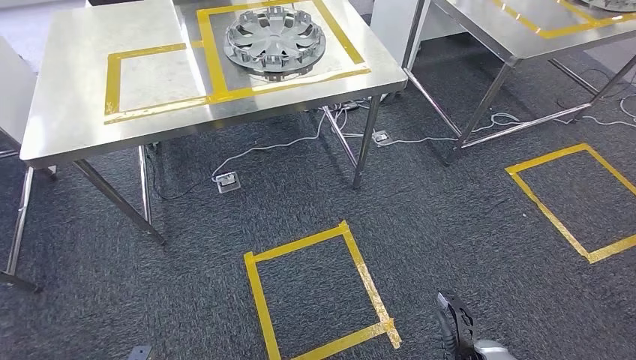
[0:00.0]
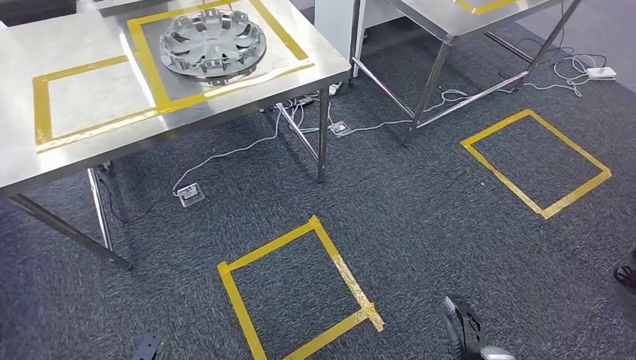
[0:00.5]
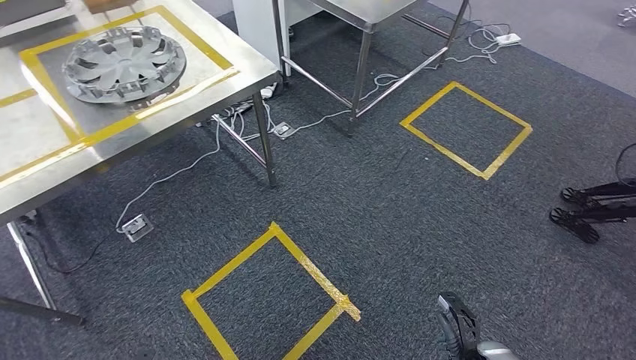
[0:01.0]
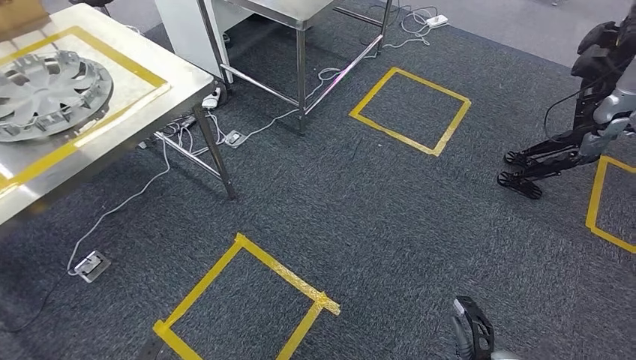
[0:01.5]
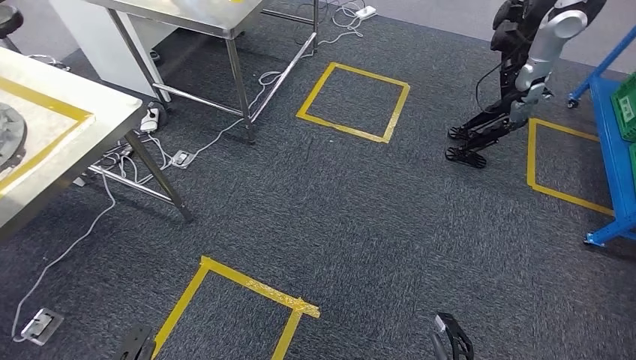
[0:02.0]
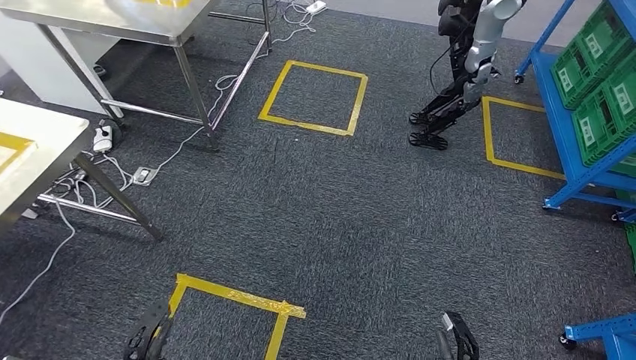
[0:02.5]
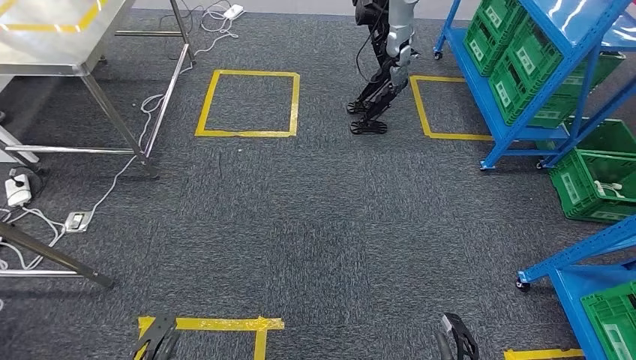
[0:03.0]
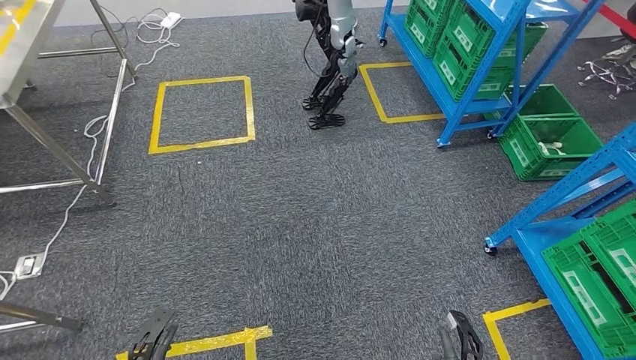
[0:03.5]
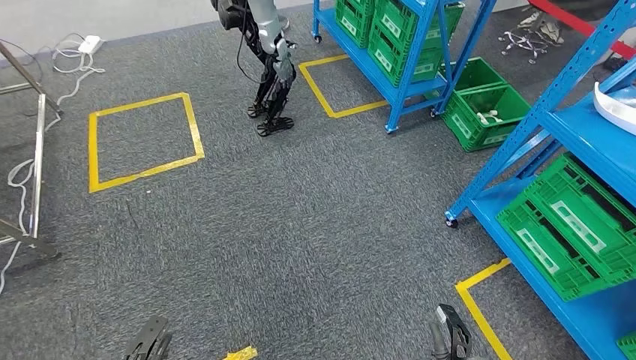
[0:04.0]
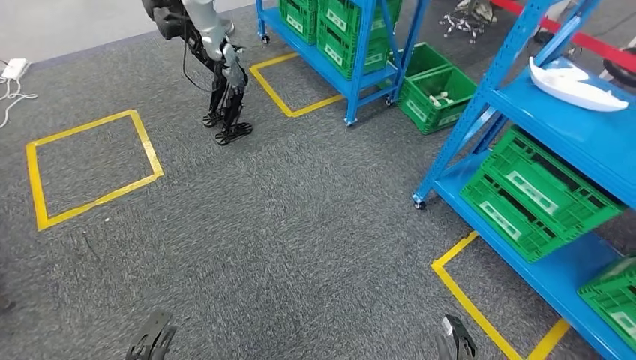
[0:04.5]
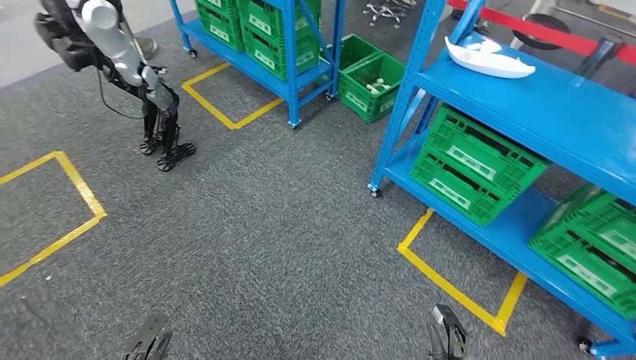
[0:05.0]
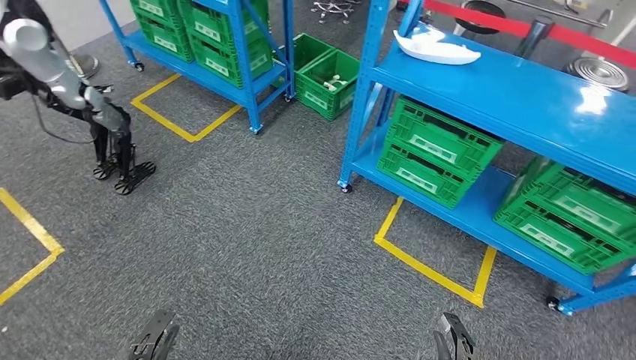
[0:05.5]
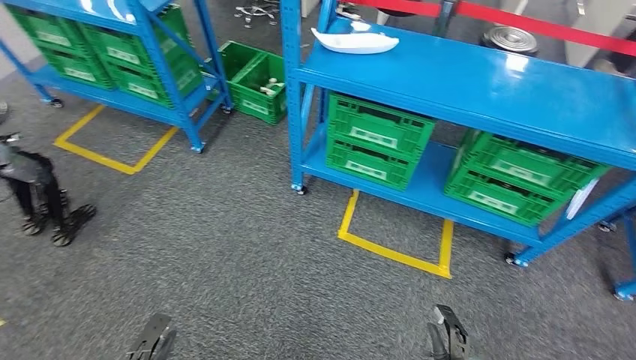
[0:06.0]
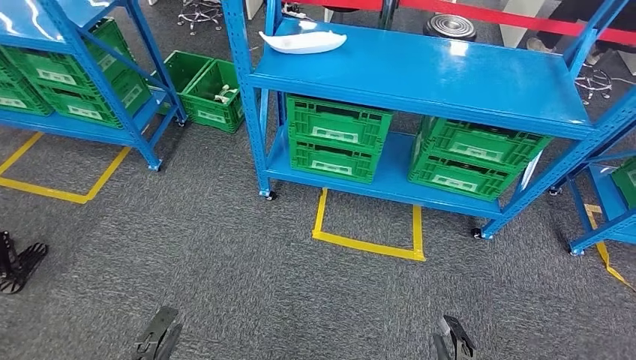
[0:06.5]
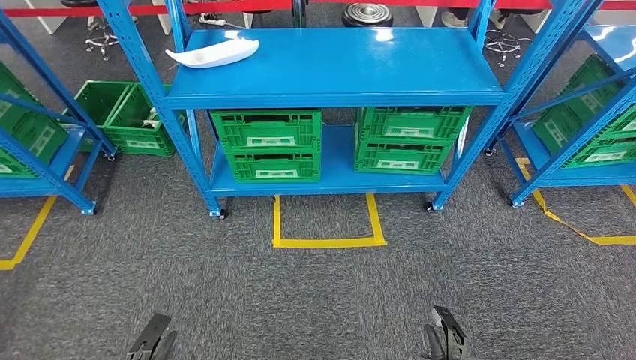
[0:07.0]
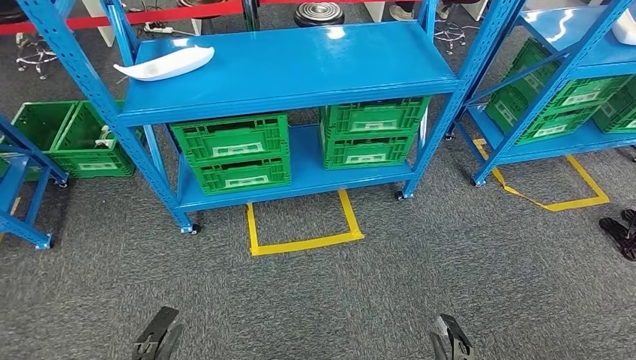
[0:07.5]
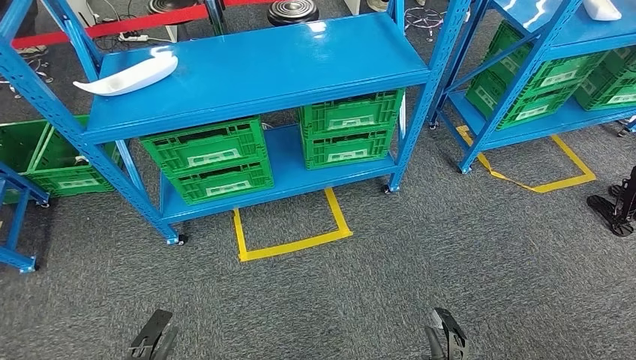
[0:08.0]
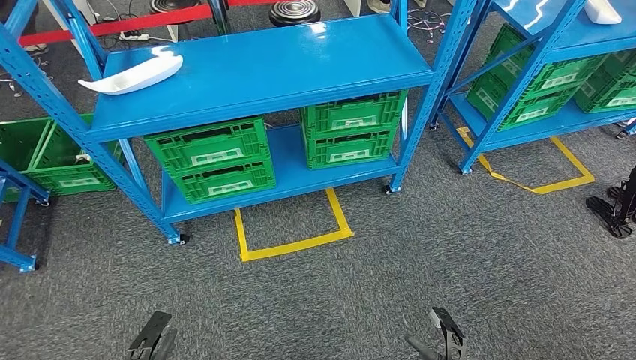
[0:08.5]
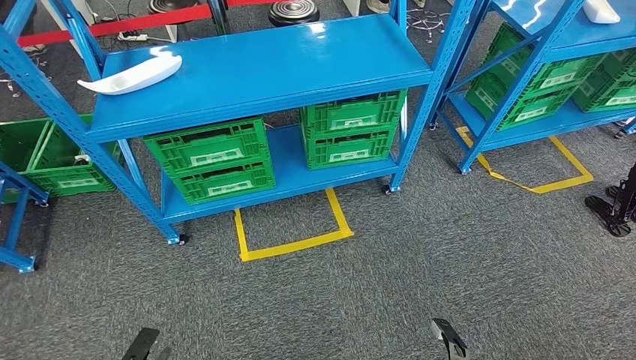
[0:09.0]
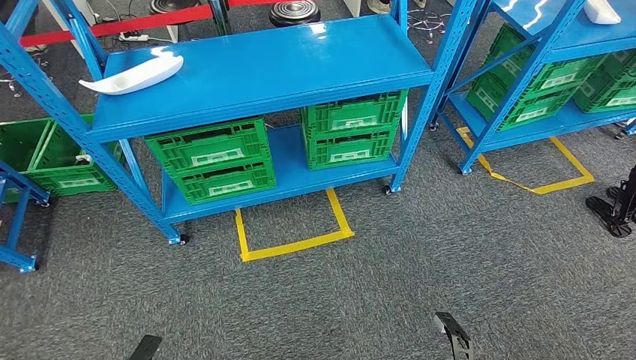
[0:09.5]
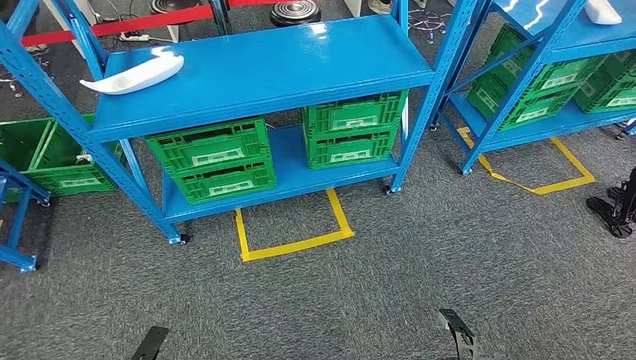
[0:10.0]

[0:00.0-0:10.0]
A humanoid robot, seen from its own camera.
0:08.0 to 0:10.0: The hands stay close to where they were, moving slightly.
